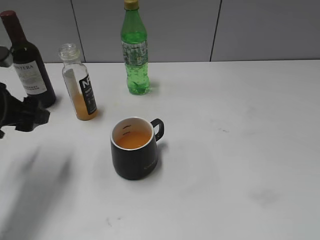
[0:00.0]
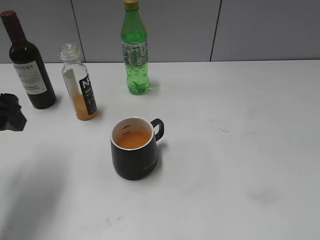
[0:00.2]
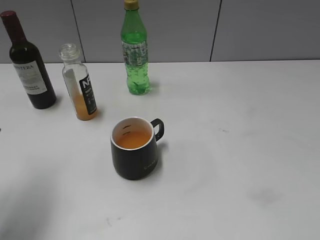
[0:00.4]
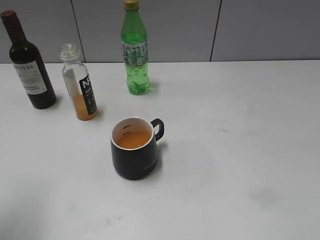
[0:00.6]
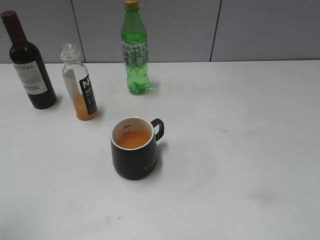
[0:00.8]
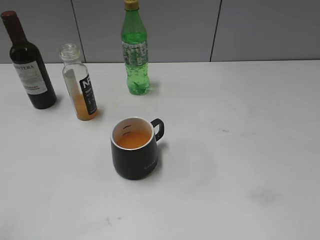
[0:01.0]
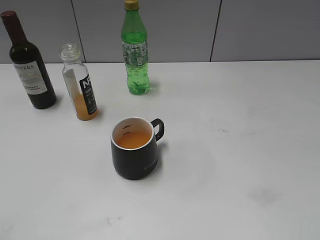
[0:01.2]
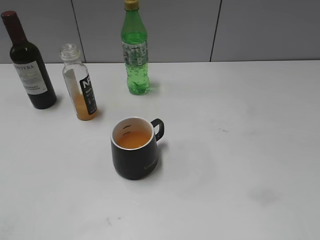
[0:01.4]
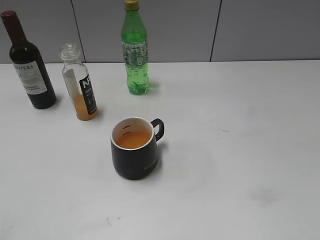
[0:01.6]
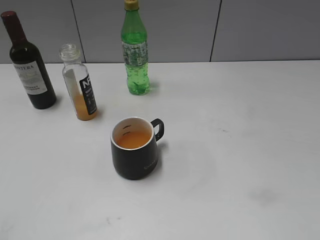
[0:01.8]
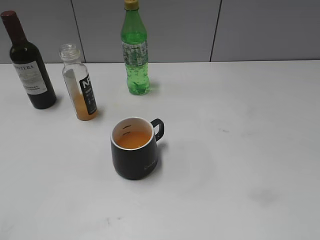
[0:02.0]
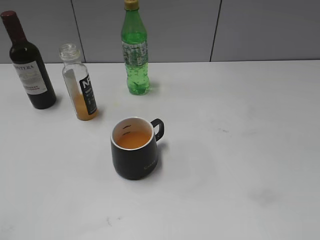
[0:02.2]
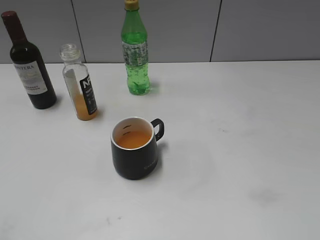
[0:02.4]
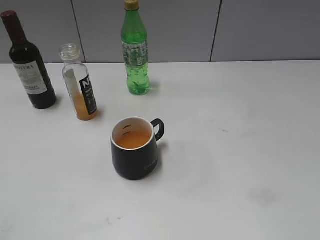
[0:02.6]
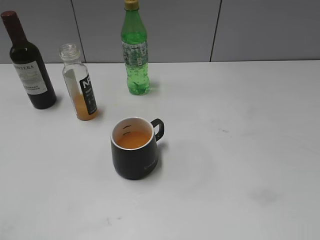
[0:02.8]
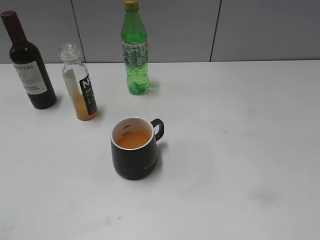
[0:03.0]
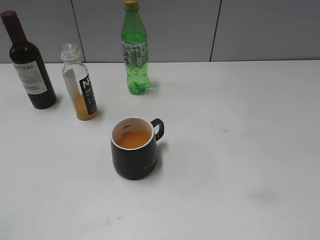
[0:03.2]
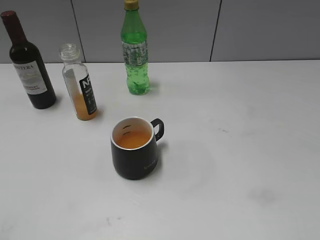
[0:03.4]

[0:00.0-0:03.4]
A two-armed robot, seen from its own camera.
0:00.0 to 0:01.6: The left gripper moves backward, some 25 cm.
